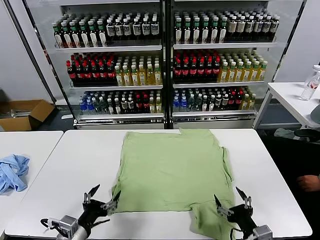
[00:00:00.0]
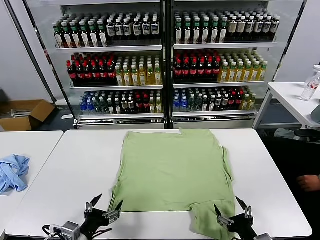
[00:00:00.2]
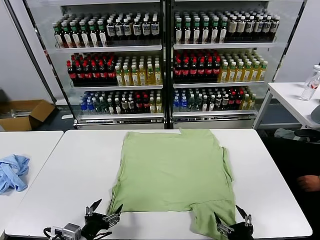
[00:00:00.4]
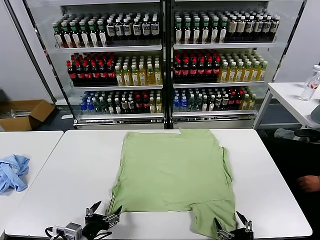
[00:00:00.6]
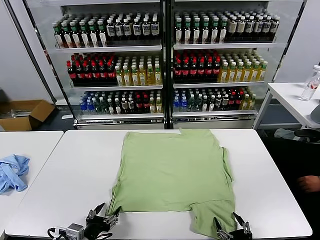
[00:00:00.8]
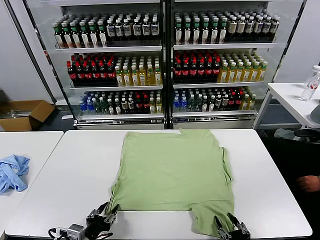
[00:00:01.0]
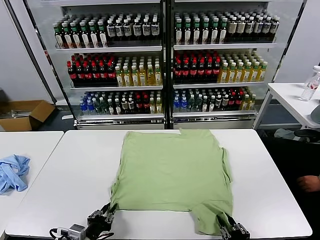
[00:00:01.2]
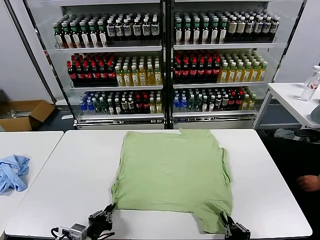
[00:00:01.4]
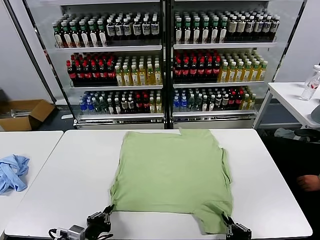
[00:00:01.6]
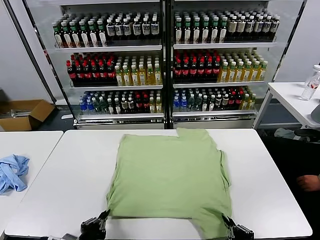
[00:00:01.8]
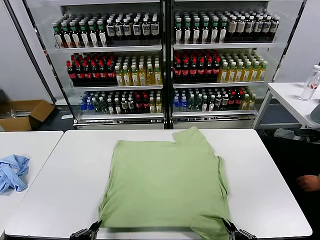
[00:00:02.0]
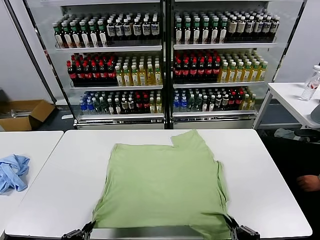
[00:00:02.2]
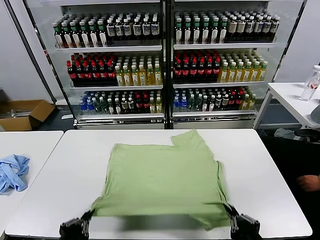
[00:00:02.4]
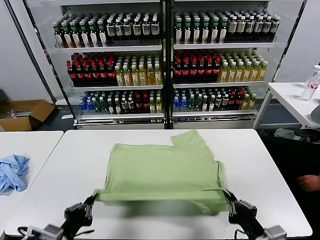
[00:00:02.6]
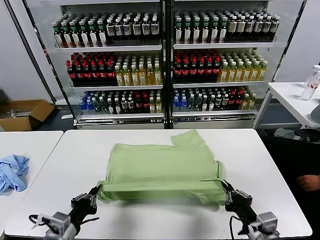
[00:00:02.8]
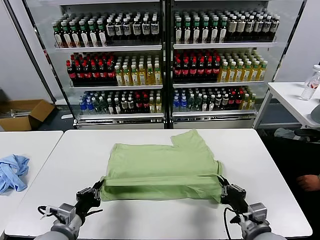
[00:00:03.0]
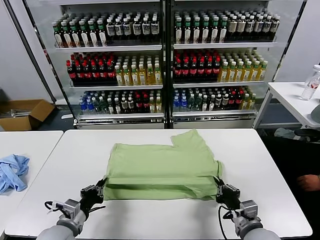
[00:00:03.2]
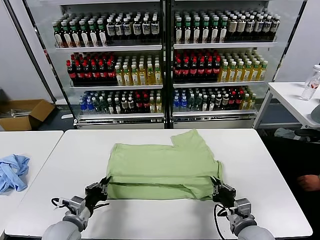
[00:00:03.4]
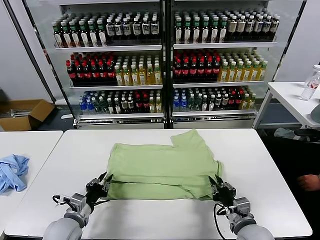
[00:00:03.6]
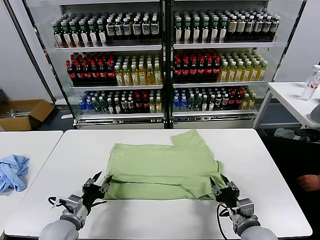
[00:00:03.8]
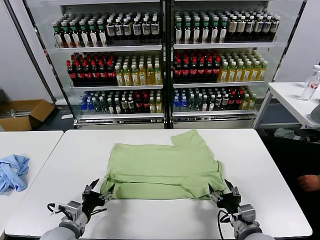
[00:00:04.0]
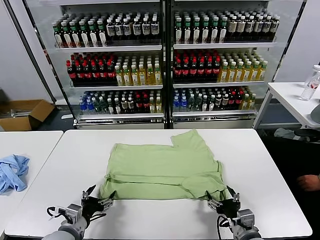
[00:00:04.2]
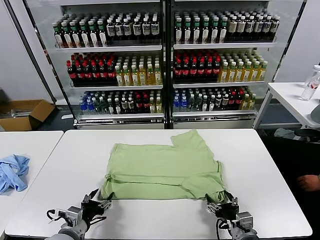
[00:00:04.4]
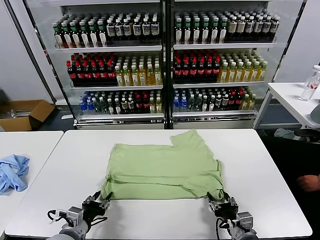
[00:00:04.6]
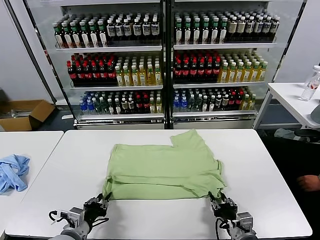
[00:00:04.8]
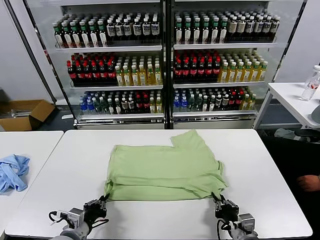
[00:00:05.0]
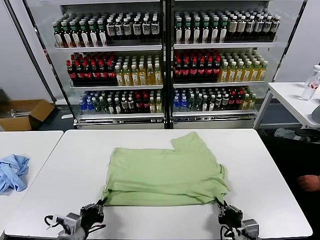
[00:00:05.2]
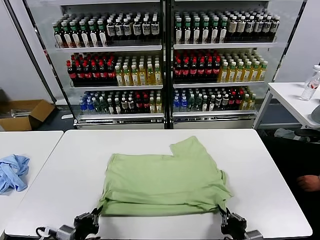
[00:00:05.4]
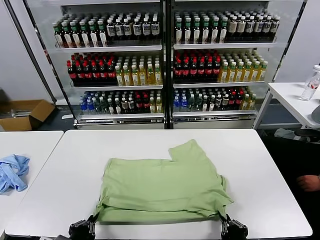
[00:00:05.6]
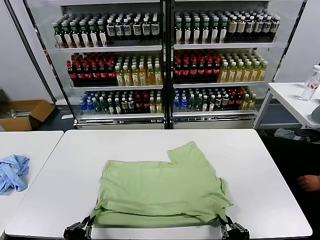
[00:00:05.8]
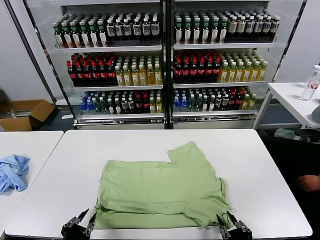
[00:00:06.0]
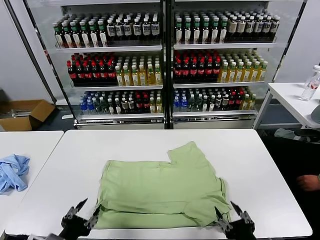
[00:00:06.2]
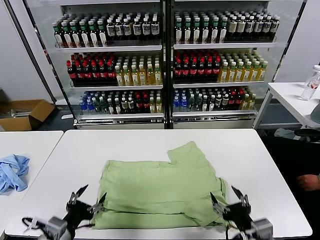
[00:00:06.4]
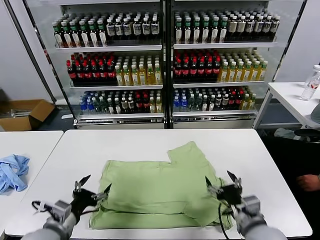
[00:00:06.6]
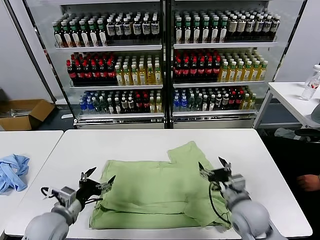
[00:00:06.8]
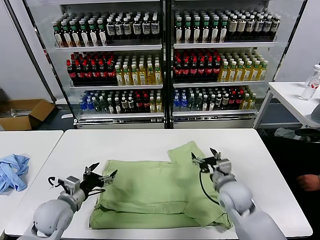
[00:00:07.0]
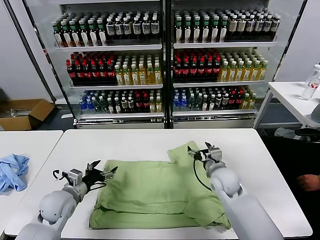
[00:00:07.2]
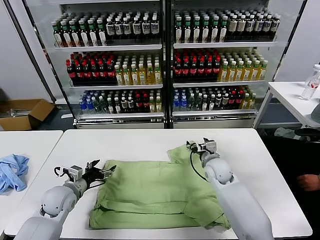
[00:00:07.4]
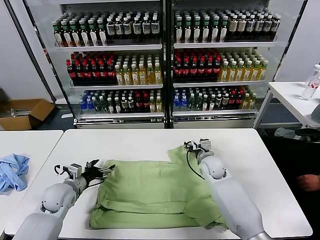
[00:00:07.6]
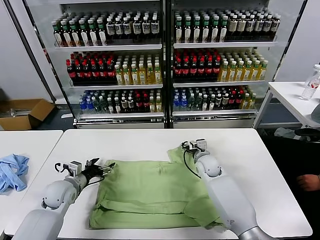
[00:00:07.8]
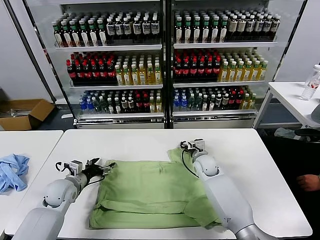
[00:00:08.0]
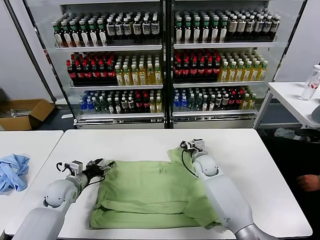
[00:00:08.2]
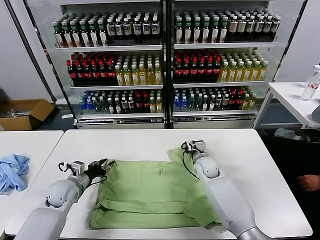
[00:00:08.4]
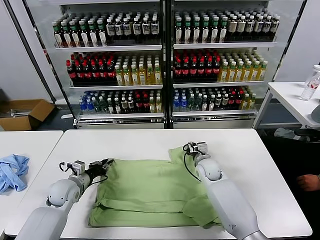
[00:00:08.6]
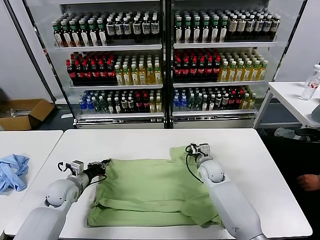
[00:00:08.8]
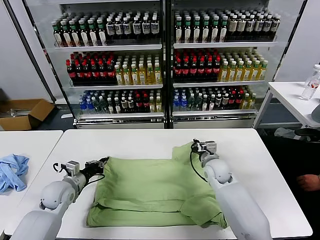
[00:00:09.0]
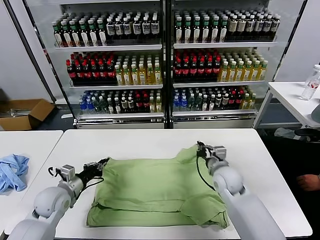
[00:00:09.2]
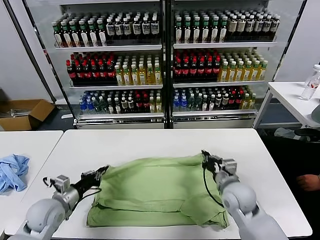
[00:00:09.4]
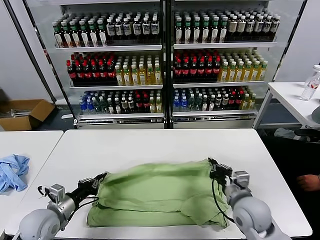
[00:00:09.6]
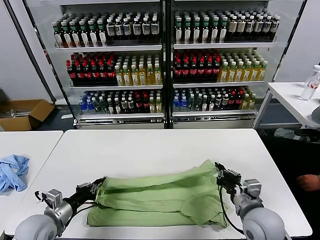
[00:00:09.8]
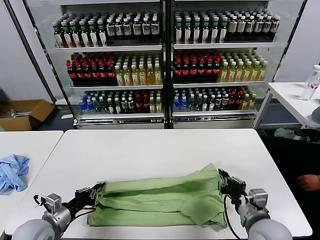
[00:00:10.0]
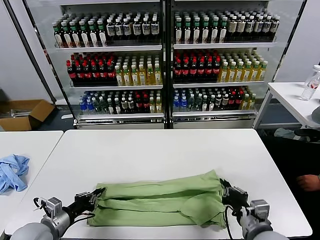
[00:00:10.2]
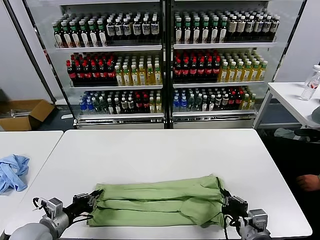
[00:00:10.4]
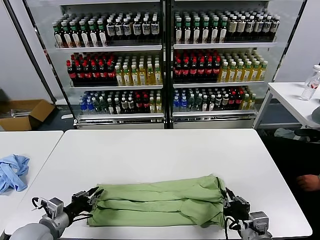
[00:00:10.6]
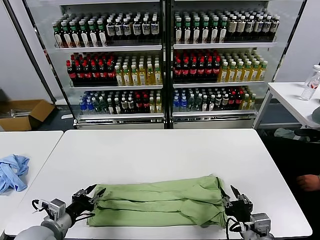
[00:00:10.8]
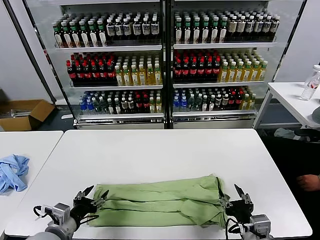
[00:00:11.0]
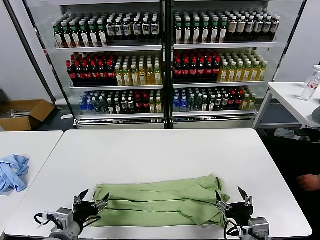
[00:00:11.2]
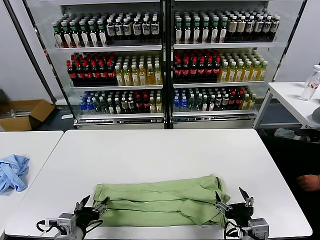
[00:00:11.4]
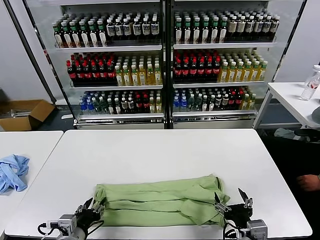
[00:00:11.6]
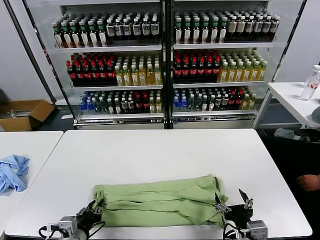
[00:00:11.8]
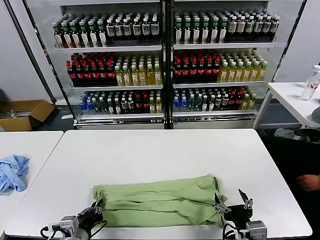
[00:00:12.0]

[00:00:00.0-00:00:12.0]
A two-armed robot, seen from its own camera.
Task of the whole recording: fold and organize the clothes.
Step, 00:00:00.0 to 00:00:01.4: use both grippers simultaneously to clamp the lower edge of the clothing fabric.
Step, 00:00:01.6 to 00:00:03.6: use both grippers to drag the lower edge of the fabric forward and fold it over the upper edge.
Step, 00:00:03.8 to 00:00:05.8: Drag the clothes downward with both gripper.
Step, 00:00:06.0 to 00:00:08.8: use both grippers simultaneously to clamp the upper edge of the clothing fabric.
Step, 00:00:09.0 to 00:00:10.6: use both grippers to drag the upper edge of the fabric backward and fold it over the lower edge.
Step, 00:00:10.8 to 00:00:12.0: use the left gripper to clamp the left edge of the fabric.
00:00:01.6 to 00:00:03.0: The left gripper goes roughly 5 cm forward. The right gripper is displaced forward by roughly 10 cm.
00:00:03.0 to 00:00:04.4: The left gripper opens. Meanwhile the right gripper opens its fingers.
00:00:04.4 to 00:00:06.0: The grippers both shift backward and upward by roughly 15 cm. The left gripper closes; the right gripper closes, then reopens.
00:00:06.0 to 00:00:07.6: The right gripper heads forward, covering about 40 cm, and opens. Meanwhile the left gripper shifts some 25 cm forward, and opens its fingers.
00:00:07.6 to 00:00:09.0: The left gripper closes. Meanwhile the right gripper moves backward, roughly 5 cm, and closes its fingers.
00:00:09.0 to 00:00:10.4: The right gripper moves backward, some 25 cm, while the left gripper heads backward, covering some 15 cm.
00:00:10.4 to 00:00:12.0: The left gripper is displaced to the right and backward by some 10 cm, and opens, then closes once more. Meanwhile the right gripper opens its fingers.

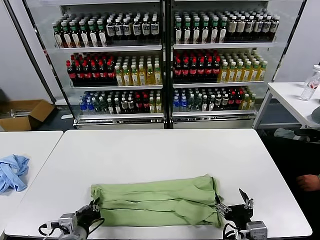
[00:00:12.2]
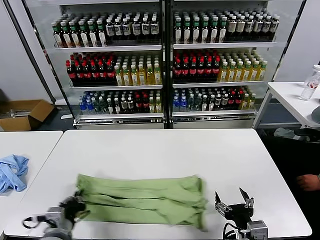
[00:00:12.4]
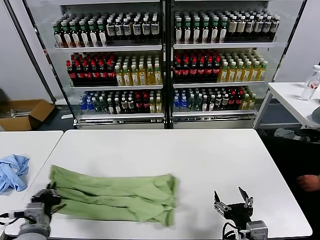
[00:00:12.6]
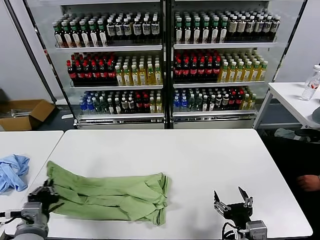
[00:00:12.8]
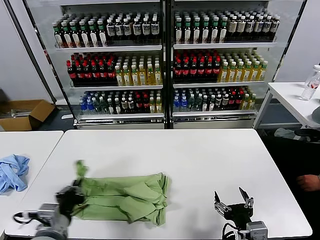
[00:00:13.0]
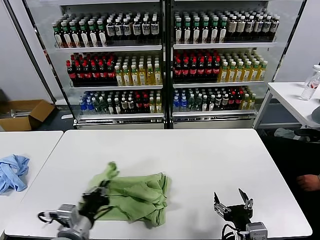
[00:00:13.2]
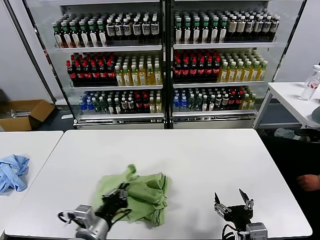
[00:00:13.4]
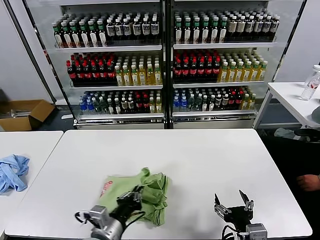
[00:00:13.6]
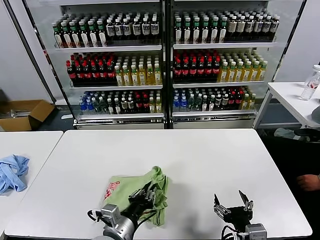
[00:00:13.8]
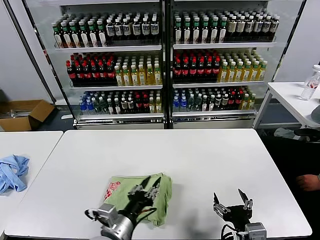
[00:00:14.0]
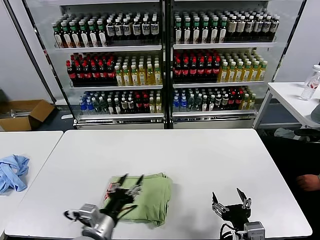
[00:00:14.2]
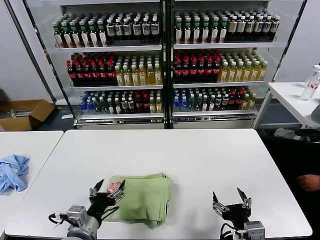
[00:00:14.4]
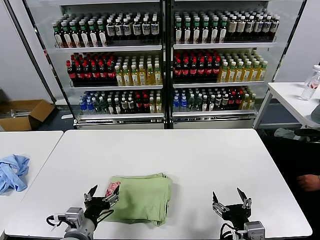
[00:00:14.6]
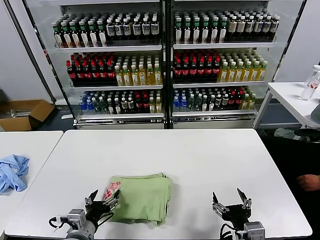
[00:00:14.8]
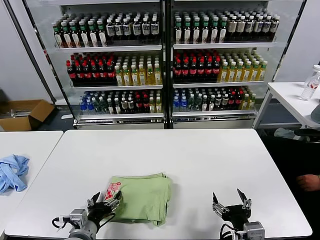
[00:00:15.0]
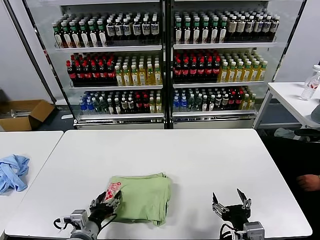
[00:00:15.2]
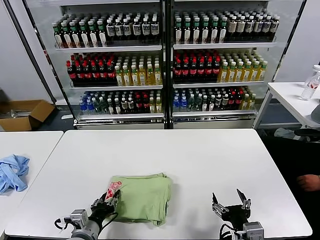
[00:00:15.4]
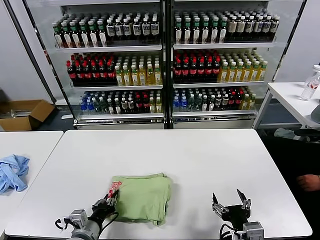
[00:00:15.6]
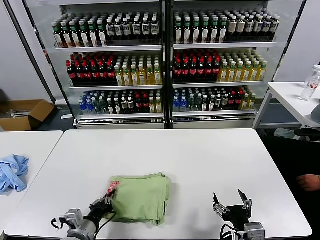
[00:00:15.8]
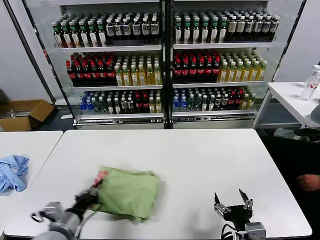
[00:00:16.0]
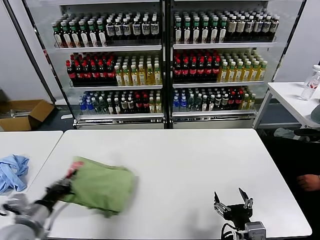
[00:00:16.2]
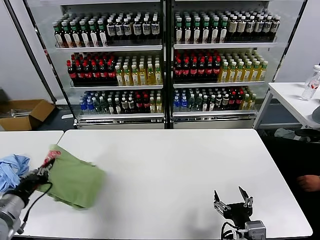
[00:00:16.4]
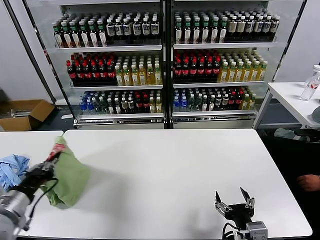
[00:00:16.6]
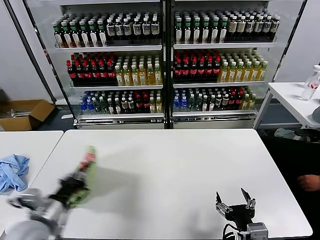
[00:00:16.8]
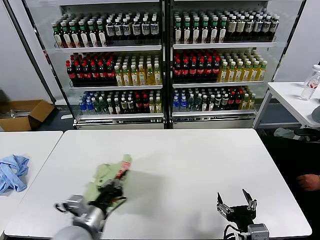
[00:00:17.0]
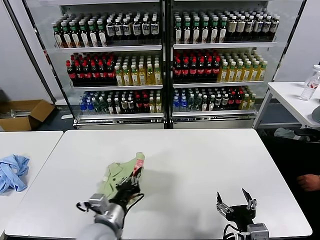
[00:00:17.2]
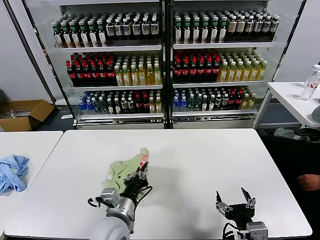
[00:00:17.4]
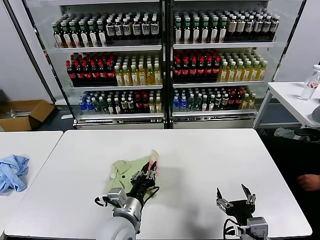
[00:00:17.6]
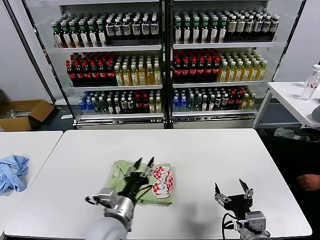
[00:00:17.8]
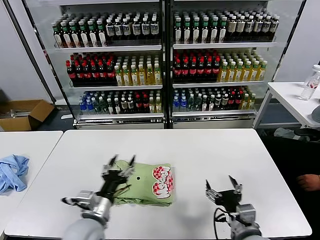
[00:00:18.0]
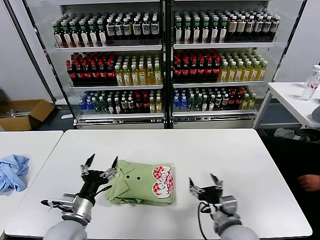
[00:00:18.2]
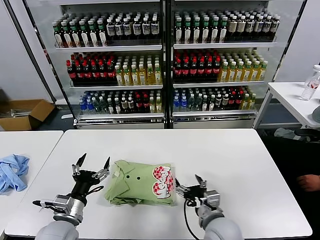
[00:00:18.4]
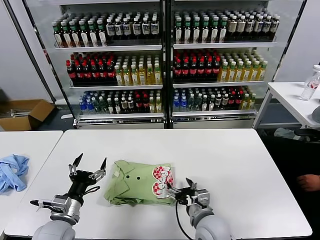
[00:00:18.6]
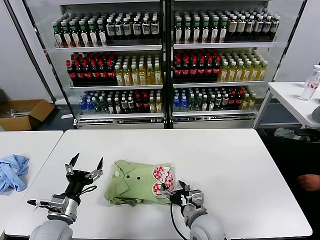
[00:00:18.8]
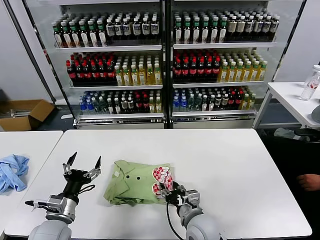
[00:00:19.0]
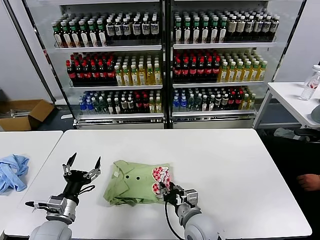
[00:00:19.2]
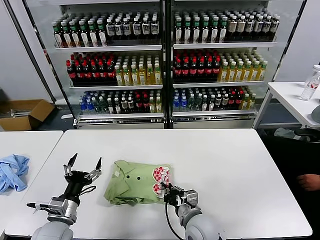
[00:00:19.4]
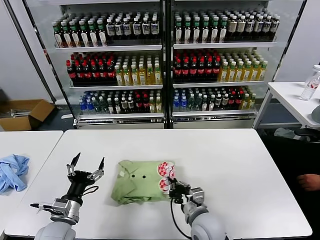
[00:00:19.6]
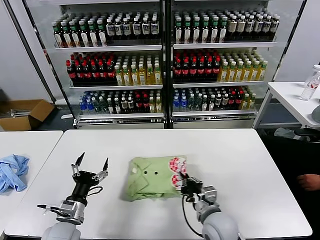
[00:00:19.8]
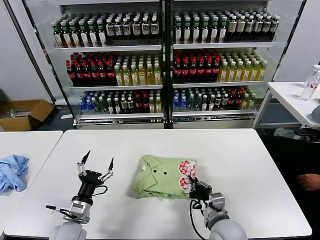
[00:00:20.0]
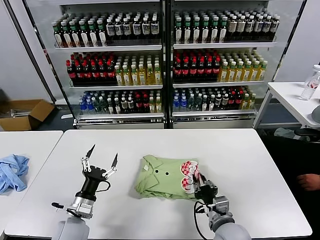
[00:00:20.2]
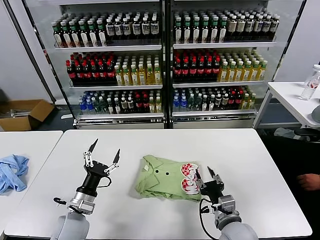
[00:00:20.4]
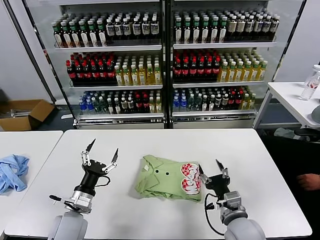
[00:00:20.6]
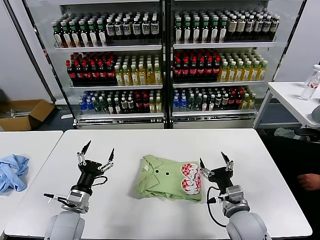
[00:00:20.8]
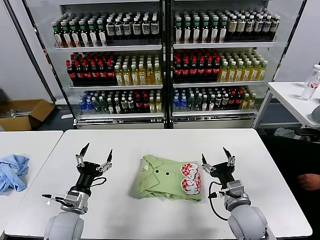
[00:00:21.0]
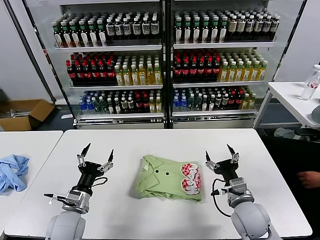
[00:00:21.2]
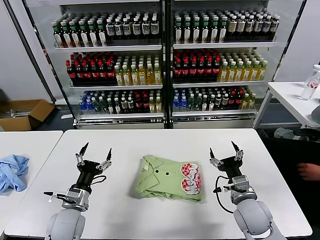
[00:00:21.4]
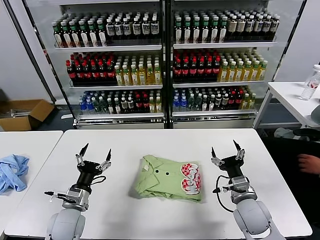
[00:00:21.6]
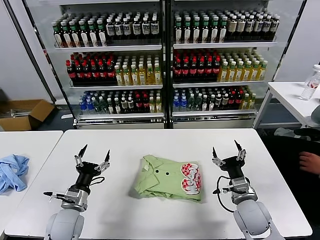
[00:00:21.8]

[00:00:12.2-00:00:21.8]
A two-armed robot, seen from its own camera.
Task of the whole recording: fold and organize the clothes.
Step, 00:00:12.2 to 00:00:14.0: use the left gripper to drag the left edge of the fabric to the left and folds it over the right edge.
Step, 00:00:14.2 to 00:00:17.6: Flip the folded clothes over with left gripper.
Step, 00:00:17.8 to 00:00:20.2: Drag the clothes to the center of the table.
00:00:12.2 to 00:00:13.8: The left gripper travels to the right by roughly 10 cm.
00:00:13.8 to 00:00:15.4: The left gripper travels to the left and downward by approximately 10 cm, and opens up.
00:00:15.4 to 00:00:17.0: The left gripper moves upward, some 10 cm, reaches approximately 15 cm to the left, then returns, and closes.
00:00:17.0 to 00:00:18.6: The right gripper shifts about 15 cm forward, to the left and downward. The left gripper travels to the right and back again, approximately 10 cm each way, and opens its fingers.
00:00:18.6 to 00:00:20.2: The right gripper closes up. The left gripper is displaced downward by some 5 cm.
00:00:20.2 to 00:00:21.8: The right gripper heads to the right and forward, covering some 10 cm, and opens.
